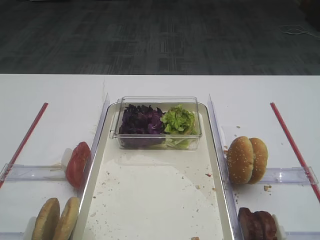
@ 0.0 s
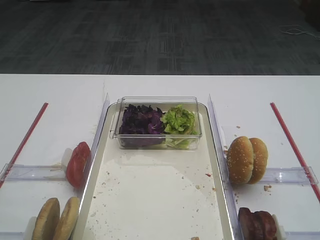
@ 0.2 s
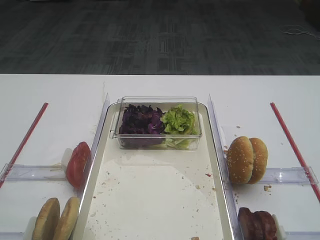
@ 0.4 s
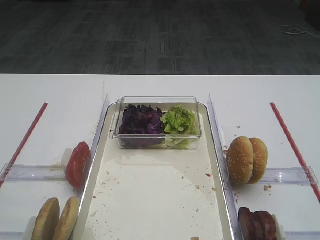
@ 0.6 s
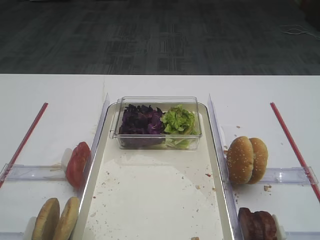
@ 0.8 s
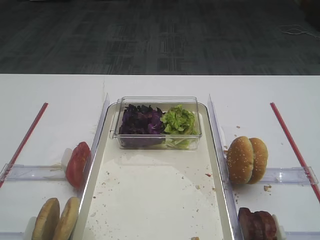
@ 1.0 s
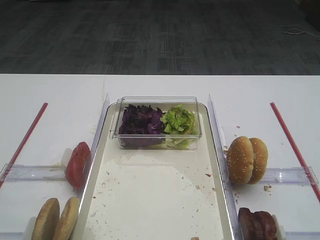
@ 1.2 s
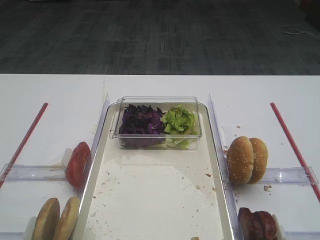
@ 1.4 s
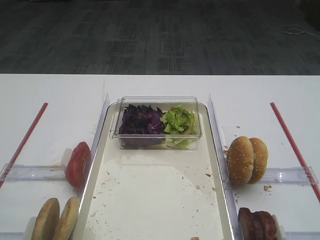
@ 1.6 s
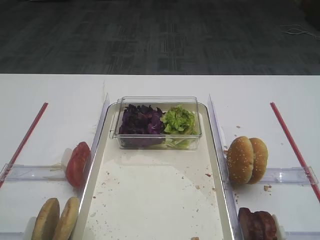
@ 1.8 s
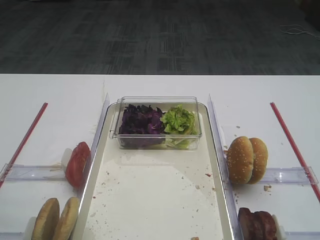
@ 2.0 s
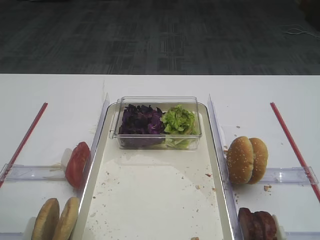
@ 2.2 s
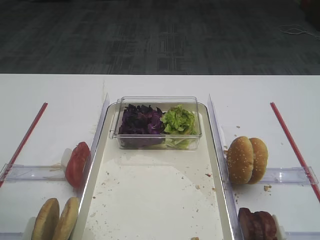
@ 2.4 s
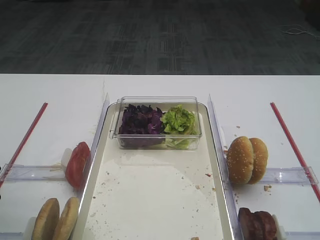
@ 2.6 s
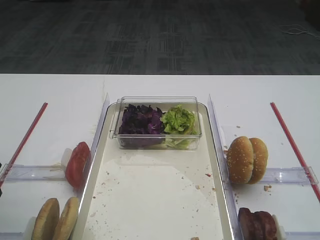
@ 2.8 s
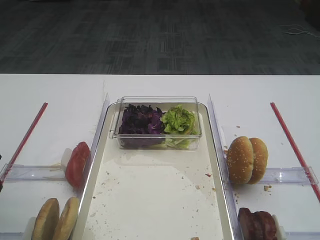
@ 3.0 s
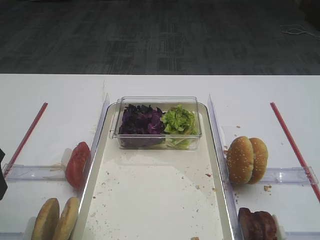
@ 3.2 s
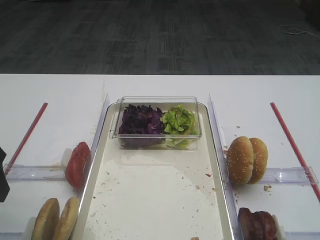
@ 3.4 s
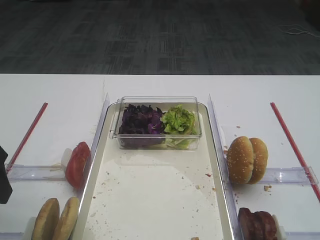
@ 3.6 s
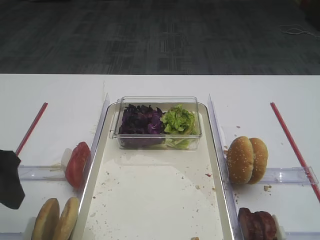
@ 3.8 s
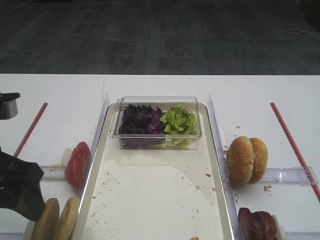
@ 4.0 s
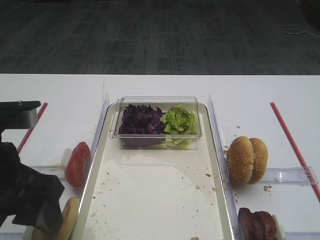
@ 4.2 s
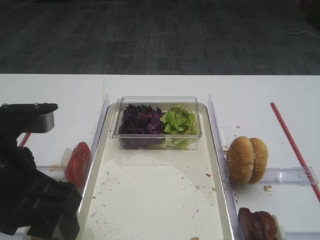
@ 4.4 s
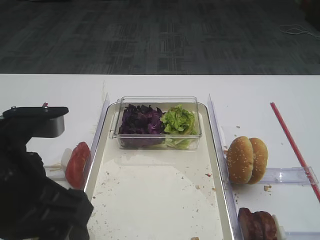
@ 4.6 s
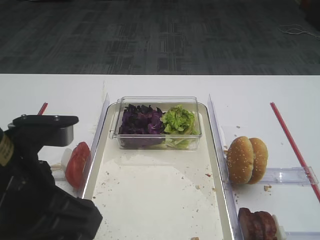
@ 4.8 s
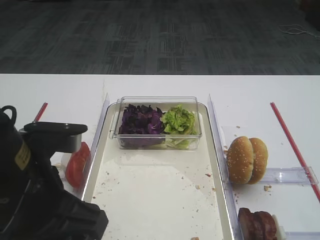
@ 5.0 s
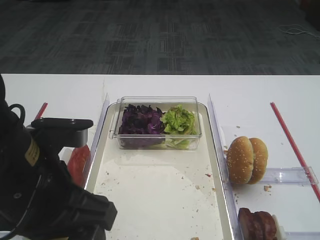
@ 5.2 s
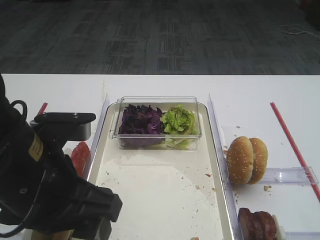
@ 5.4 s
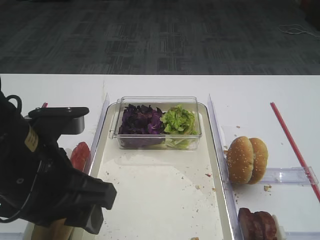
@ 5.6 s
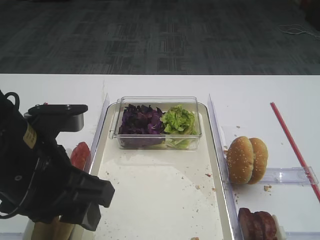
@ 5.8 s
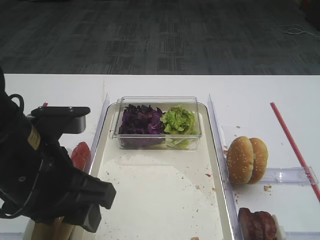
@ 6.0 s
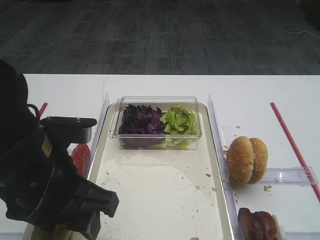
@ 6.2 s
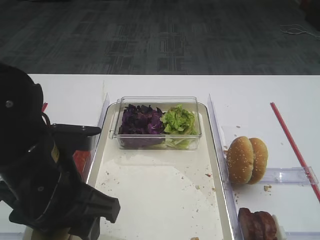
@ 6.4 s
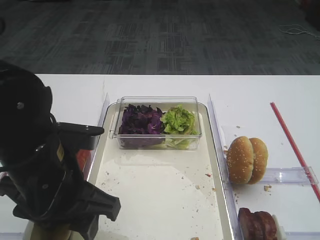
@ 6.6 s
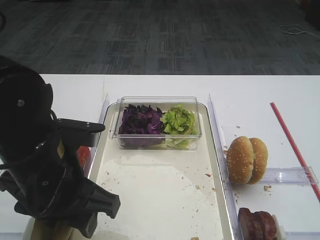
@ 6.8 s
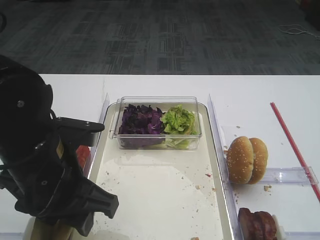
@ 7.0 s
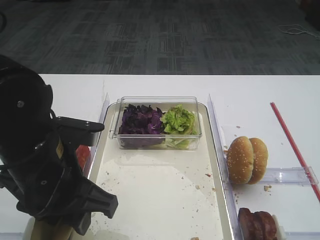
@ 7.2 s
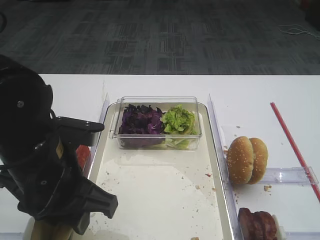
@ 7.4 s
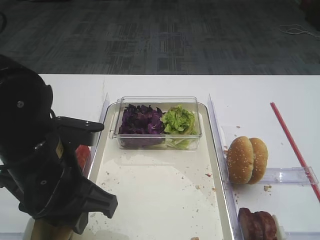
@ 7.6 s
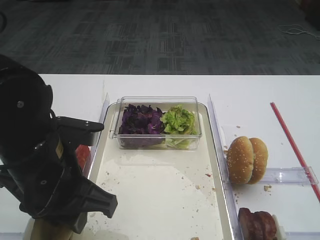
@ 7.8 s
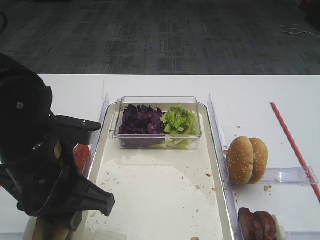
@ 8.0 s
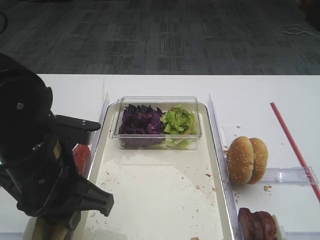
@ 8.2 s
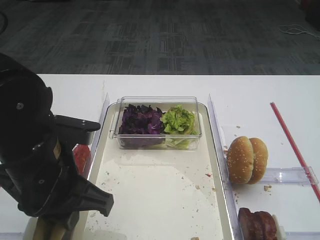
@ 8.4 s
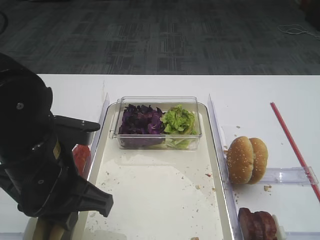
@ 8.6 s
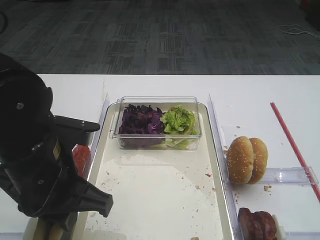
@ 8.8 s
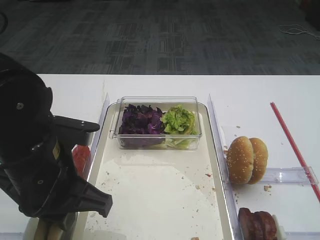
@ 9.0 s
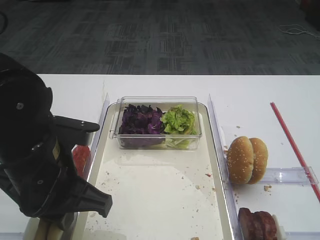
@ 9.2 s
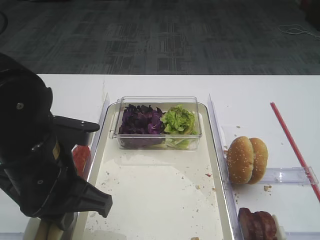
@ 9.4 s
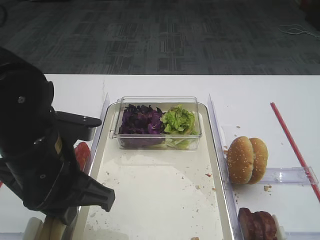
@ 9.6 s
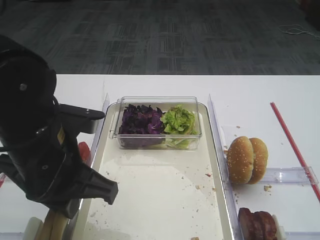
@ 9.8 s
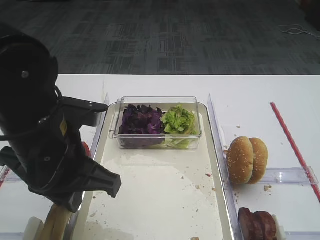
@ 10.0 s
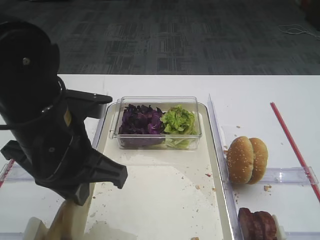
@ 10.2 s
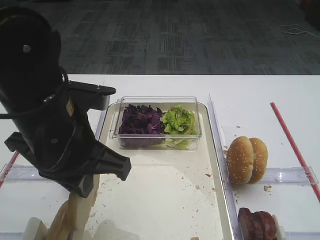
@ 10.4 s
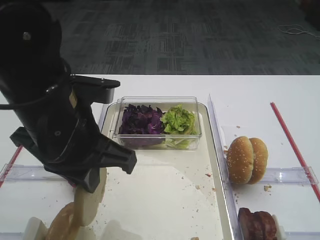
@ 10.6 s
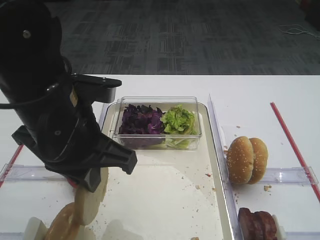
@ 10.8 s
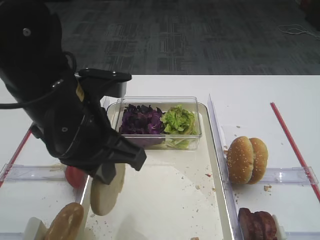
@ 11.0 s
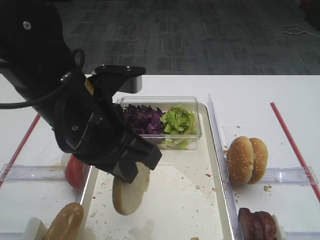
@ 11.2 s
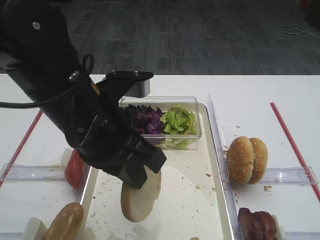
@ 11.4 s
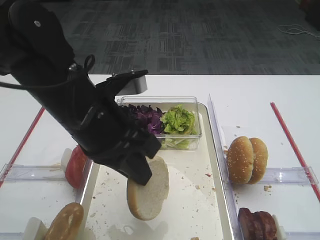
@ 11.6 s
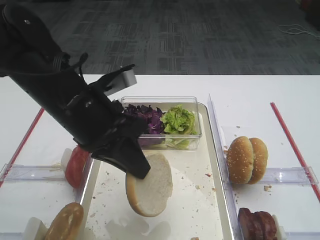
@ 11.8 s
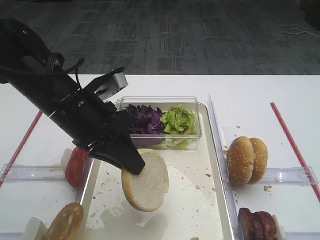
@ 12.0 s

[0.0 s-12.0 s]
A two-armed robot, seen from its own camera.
Step, 0.0 to 10.4 s: Pick up the bread slice with the left gripper.
3.0 to 4.4 s: The left gripper goes some 10 cm to the right.
4.4 to 6.0 s: There are only small adjustments of the grippers.
6.0 to 7.6 s: There are only small adjustments of the grippers.
7.6 to 9.0 s: Neither gripper changes place.
9.0 to 10.4 s: The left gripper ends up some 5 cm from where it was.
10.4 to 12.0 s: The left gripper goes about 5 cm forward.

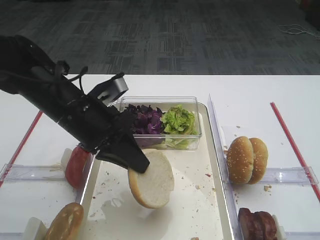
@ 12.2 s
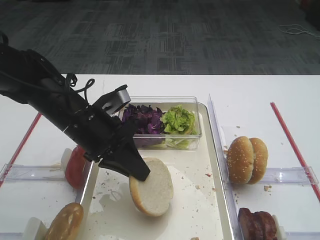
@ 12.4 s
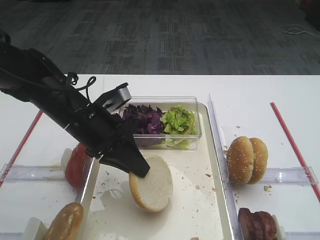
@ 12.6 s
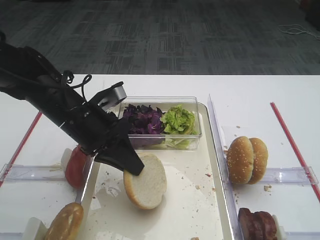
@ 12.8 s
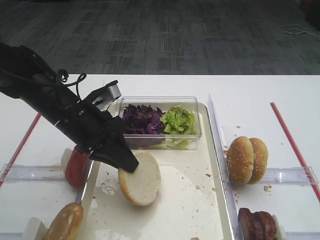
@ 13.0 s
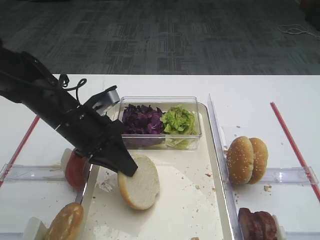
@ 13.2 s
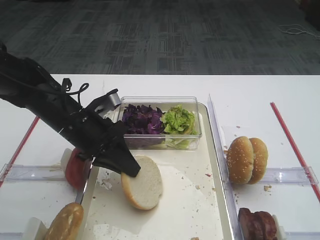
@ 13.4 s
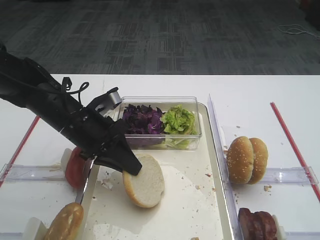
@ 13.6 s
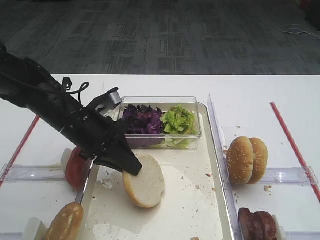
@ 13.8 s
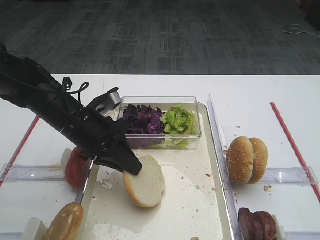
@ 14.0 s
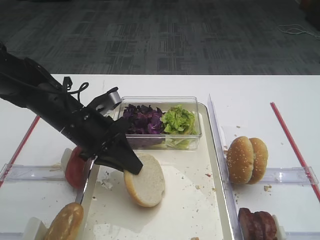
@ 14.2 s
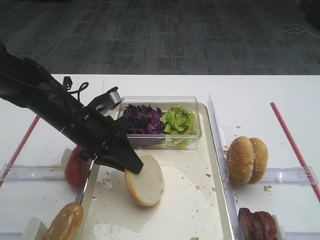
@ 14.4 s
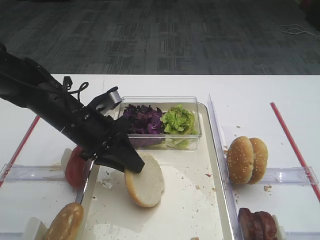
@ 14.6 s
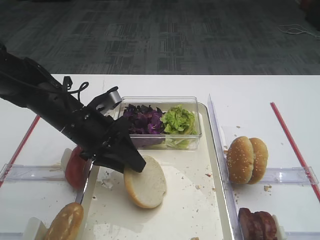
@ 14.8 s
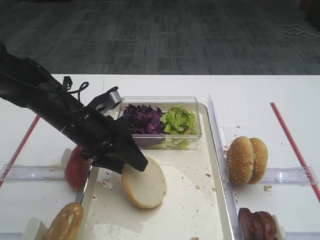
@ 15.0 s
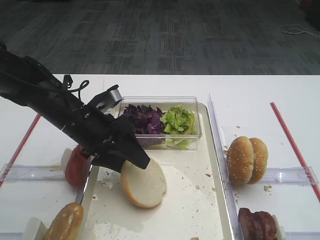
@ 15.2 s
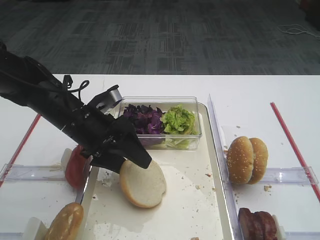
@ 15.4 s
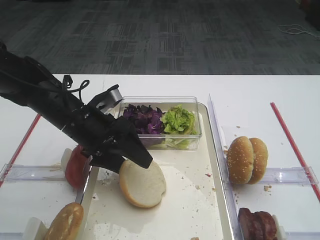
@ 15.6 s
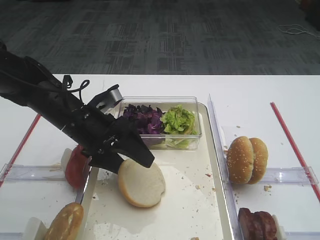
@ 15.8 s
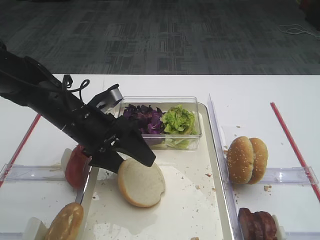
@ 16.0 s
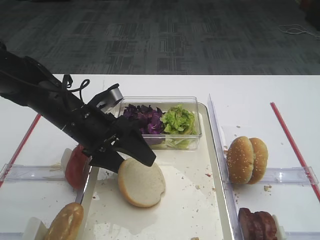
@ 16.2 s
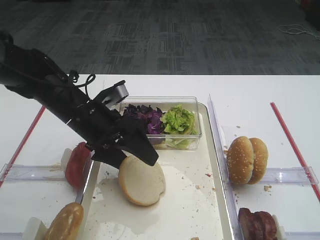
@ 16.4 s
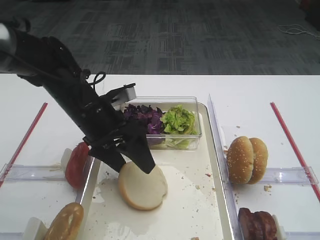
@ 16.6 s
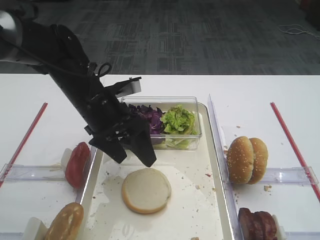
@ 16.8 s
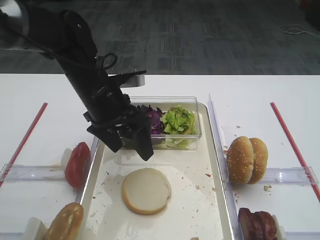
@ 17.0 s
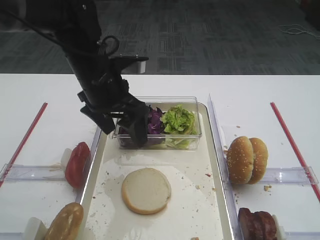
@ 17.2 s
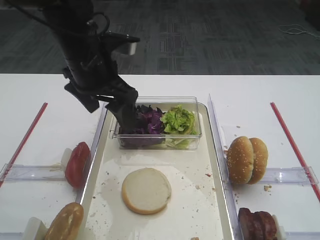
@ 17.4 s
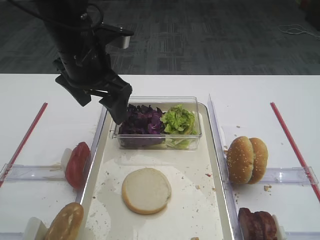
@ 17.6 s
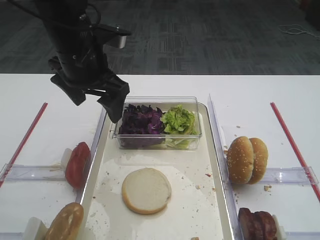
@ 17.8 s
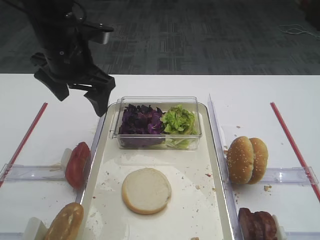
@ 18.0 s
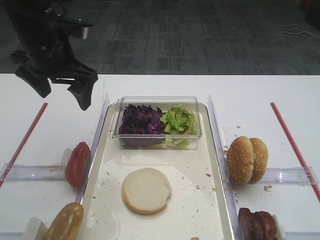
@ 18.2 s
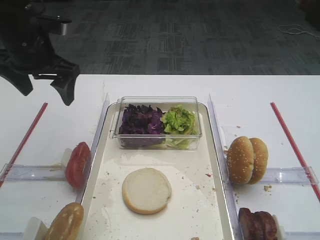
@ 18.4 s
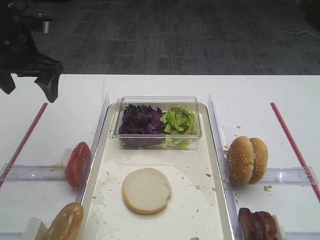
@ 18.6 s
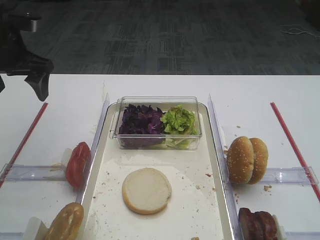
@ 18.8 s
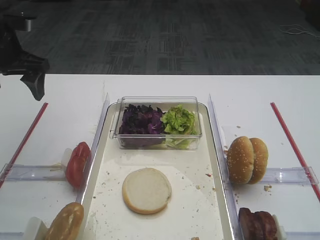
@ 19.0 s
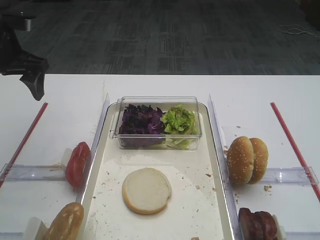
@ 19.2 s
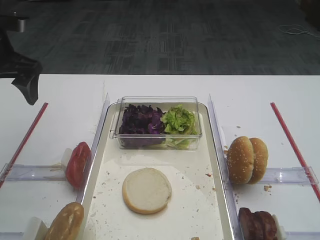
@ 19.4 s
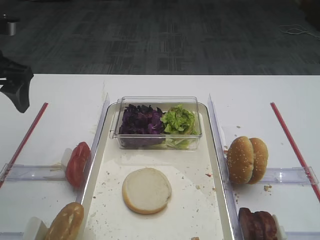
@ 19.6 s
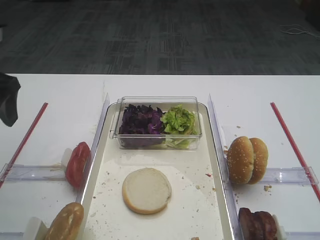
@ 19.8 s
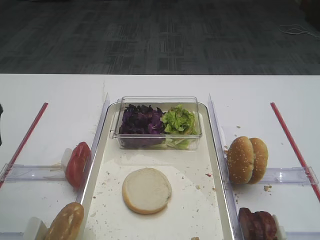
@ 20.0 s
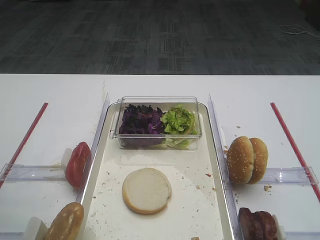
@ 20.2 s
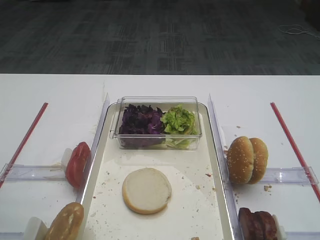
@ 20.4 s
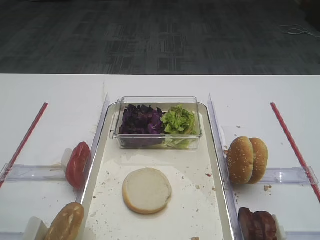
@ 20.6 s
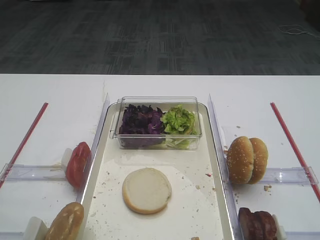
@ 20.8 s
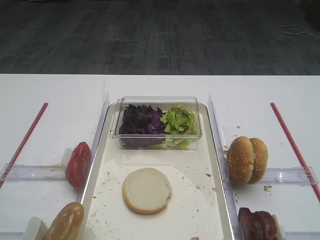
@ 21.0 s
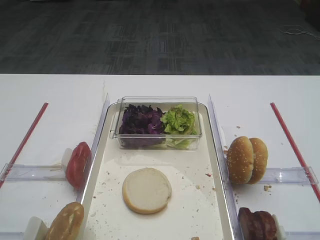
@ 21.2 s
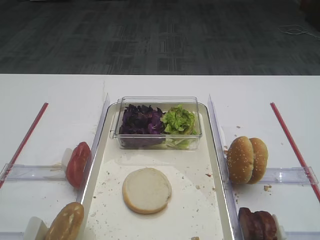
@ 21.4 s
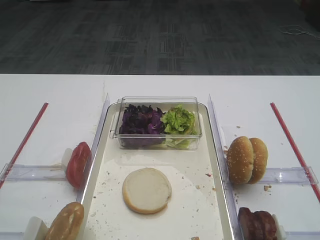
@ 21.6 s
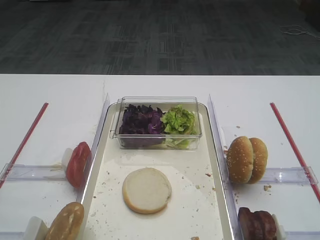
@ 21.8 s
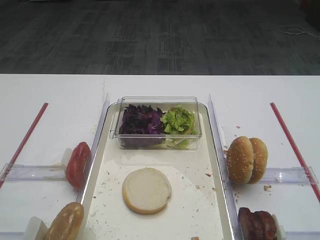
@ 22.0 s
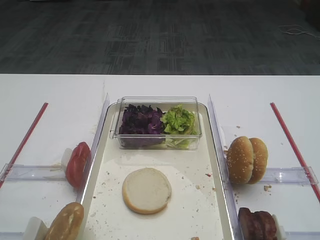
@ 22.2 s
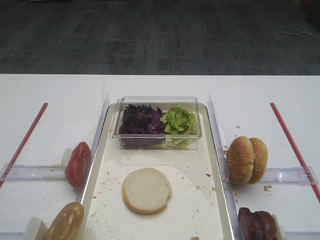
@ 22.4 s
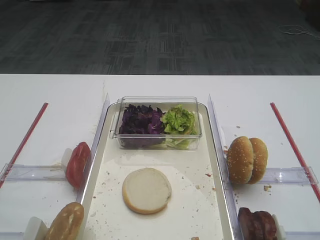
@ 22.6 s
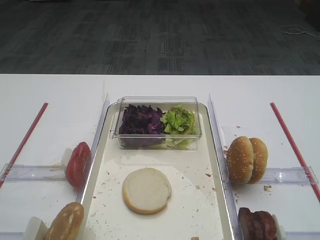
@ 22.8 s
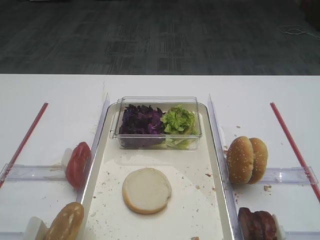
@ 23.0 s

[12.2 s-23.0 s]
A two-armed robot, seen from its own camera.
Step, 12.2 to 16.6 s: Place the bread slice on the tray with the left gripper.
12.2 to 13.8 s: The left gripper moves approximately 5 cm.
13.8 to 15.2 s: The left gripper opens its fingers.
15.2 to 16.8 s: The left gripper opens up.
16.8 to 18.4 s: The left gripper moves to the left and upward, approximately 15 cm.
18.4 to 20.0 s: The left gripper shifts about 15 cm backward and to the left.
20.0 to 21.4 s: The left gripper is displaced backward by about 25 cm.
21.4 to 23.0 s: Neither gripper changes place.
